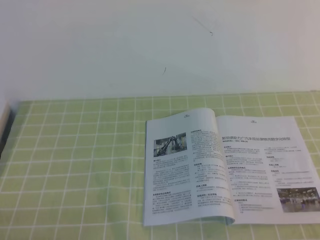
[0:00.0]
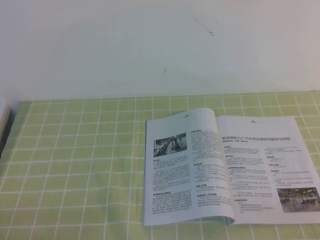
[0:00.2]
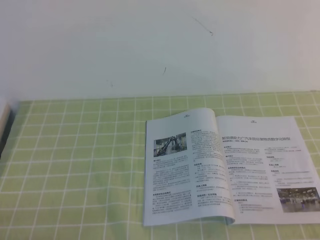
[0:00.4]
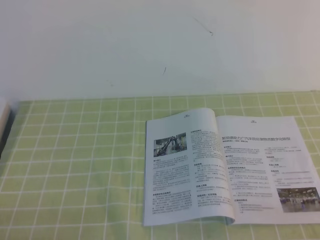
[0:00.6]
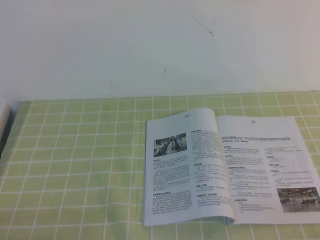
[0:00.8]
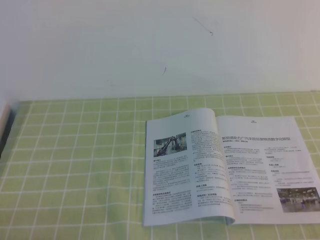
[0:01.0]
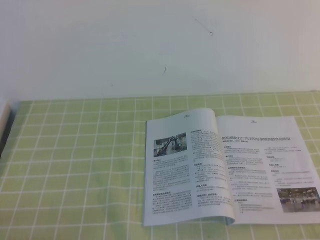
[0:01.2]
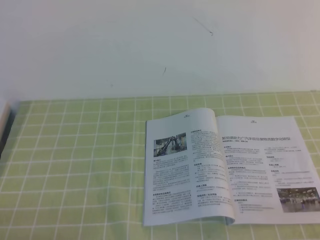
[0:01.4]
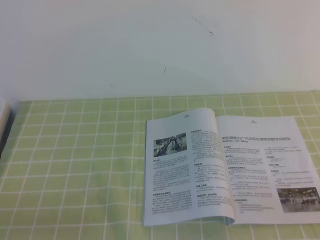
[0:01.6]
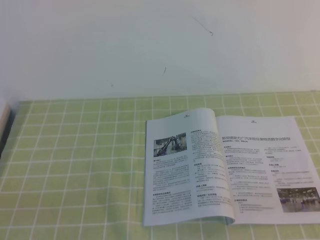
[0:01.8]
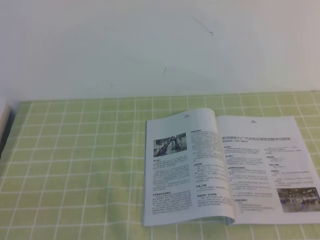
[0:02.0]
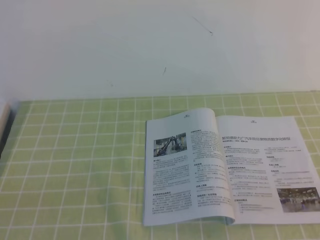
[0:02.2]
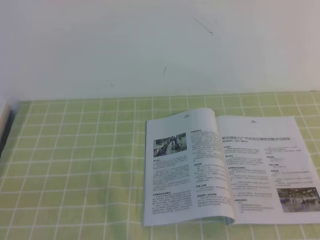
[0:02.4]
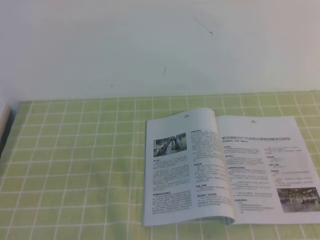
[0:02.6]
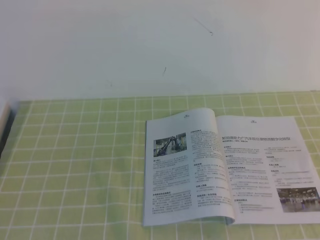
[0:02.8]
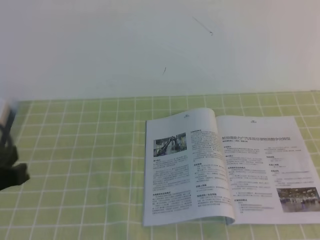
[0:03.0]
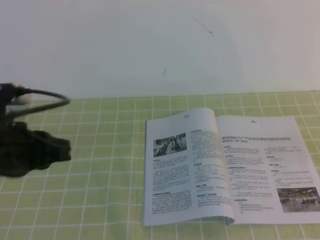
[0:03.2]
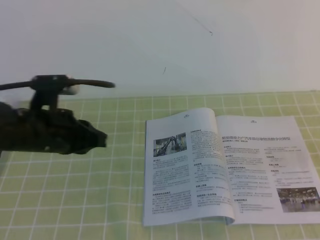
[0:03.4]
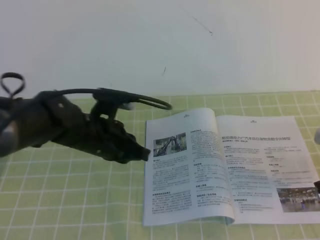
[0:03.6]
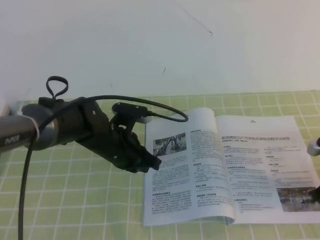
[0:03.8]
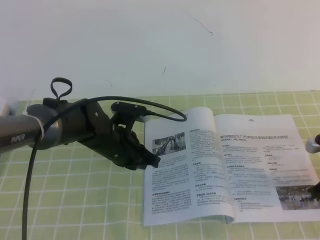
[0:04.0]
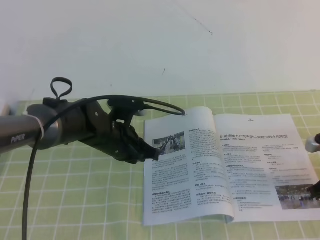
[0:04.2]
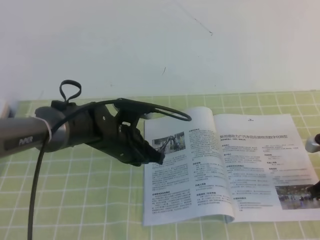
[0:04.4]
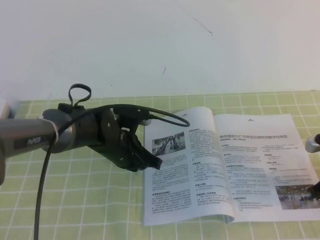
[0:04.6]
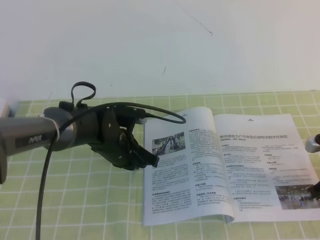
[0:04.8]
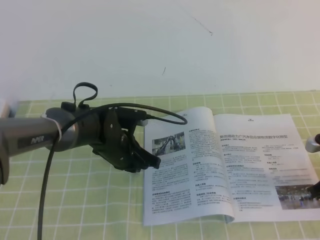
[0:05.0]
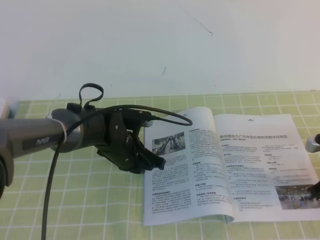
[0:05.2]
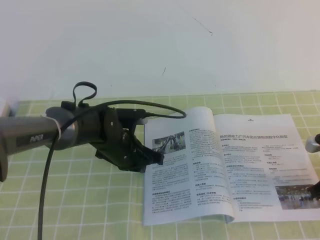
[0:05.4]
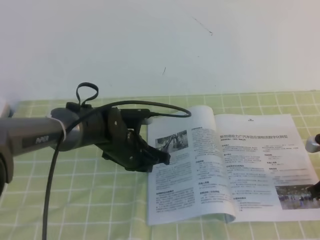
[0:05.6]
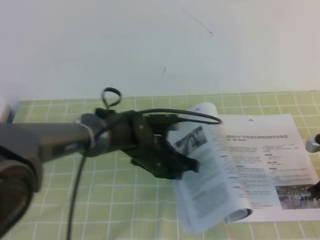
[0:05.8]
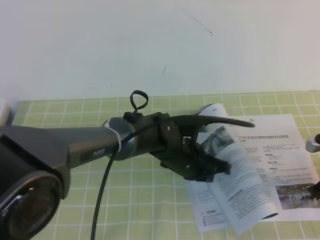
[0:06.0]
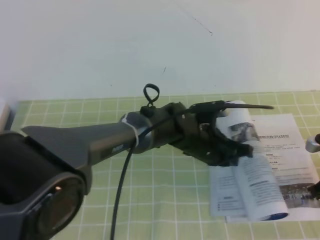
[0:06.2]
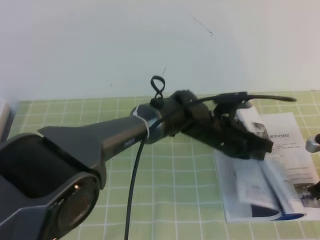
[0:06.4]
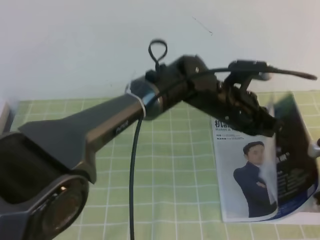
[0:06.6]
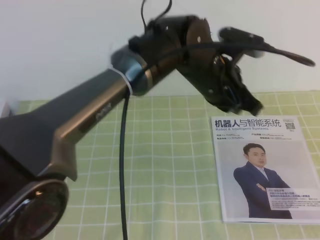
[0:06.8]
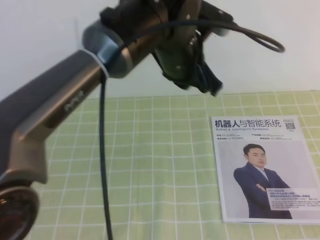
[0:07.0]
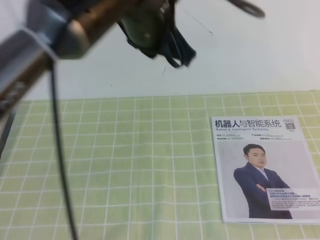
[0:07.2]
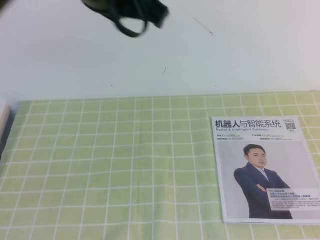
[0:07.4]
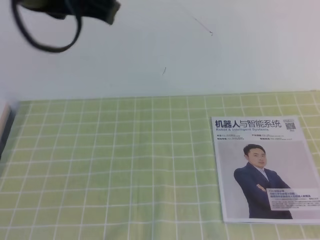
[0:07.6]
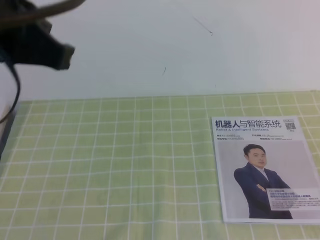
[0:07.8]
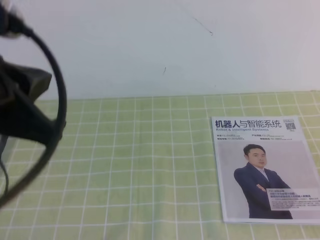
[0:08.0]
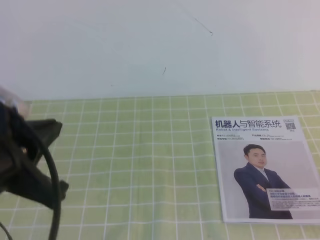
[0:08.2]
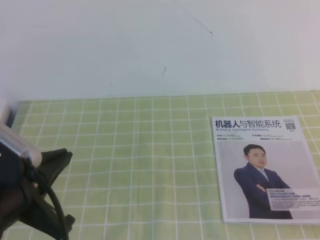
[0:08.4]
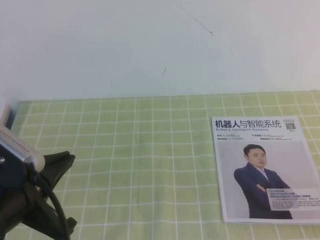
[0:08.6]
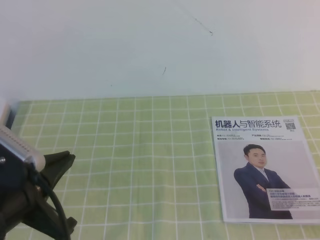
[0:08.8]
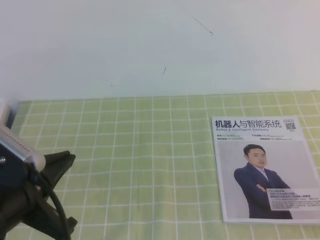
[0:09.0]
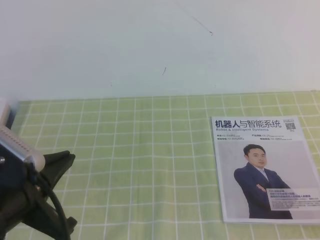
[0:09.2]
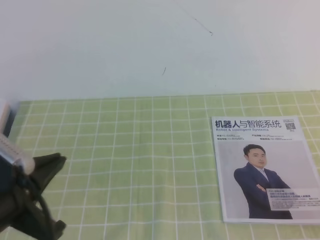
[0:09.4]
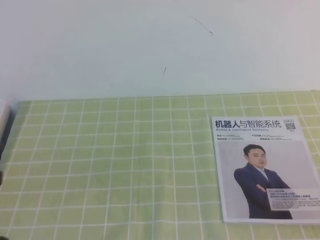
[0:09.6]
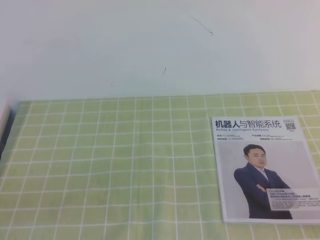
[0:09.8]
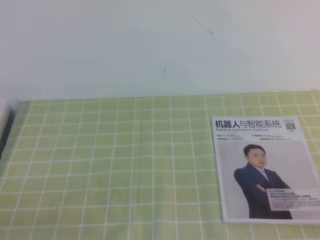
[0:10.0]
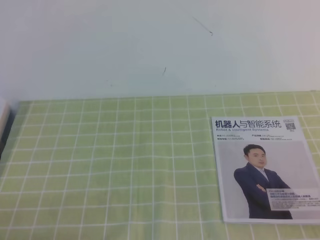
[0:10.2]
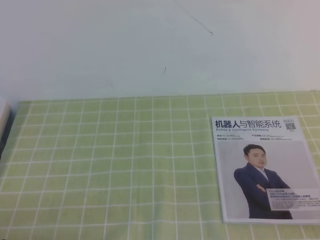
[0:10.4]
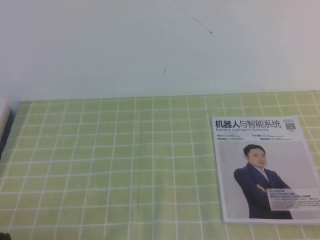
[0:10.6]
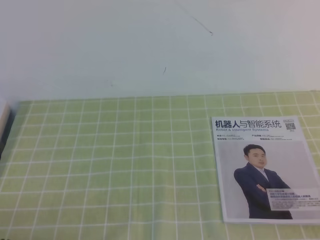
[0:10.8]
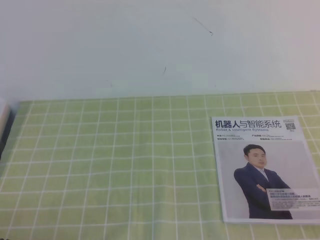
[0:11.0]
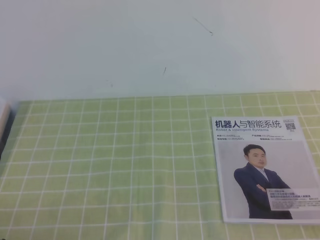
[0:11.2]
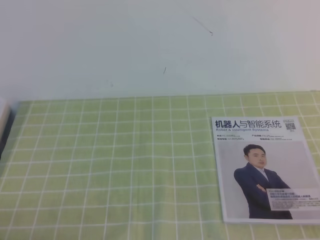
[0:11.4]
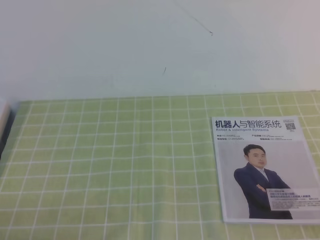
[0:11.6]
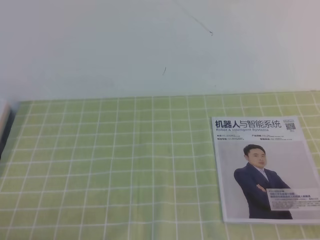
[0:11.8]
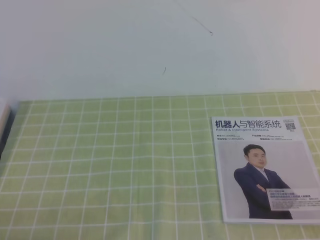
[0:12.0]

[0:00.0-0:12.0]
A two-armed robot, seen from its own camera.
Task of the whole recording: on the green tablecloth, hold the book with one hand and close it with the other.
0:01.6 to 0:03.0: The left gripper heads upward and forward, covering approximately 15 cm.
0:03.0 to 0:04.4: The right gripper heads downward and forward, covering some 25 cm, while the left gripper shifts approximately 30 cm forward, downward and to the right.
0:04.4 to 0:06.0: The left gripper shifts roughly 10 cm to the right.
0:06.0 to 0:07.6: The right gripper goes roughly 30 cm upward and backward. Meanwhile the left gripper goes approximately 35 cm upward.
0:07.6 to 0:09.0: The left gripper travels downward and backward by about 20 cm.
0:09.0 to 0:10.4: The left gripper shifts roughly 15 cm downward, to the left and backward.
